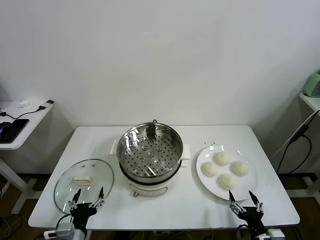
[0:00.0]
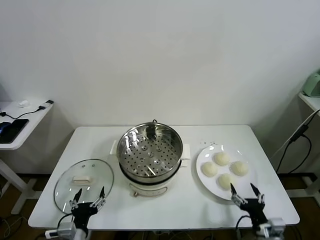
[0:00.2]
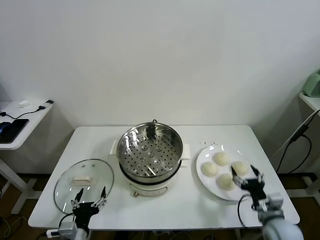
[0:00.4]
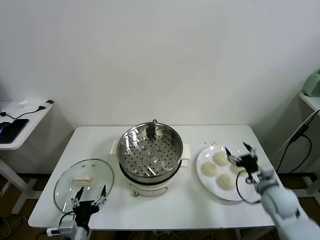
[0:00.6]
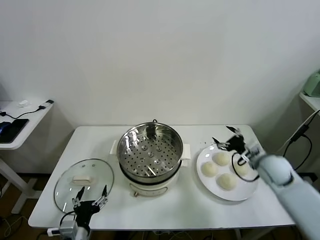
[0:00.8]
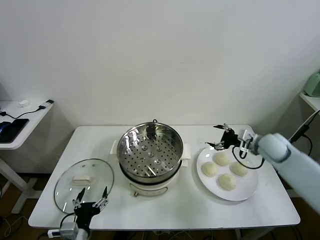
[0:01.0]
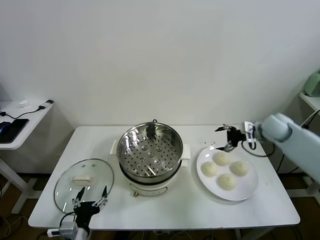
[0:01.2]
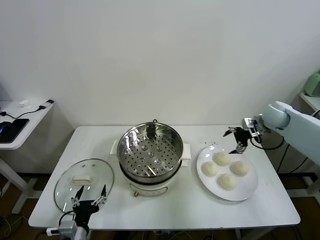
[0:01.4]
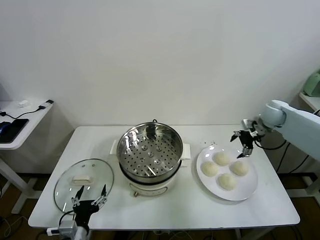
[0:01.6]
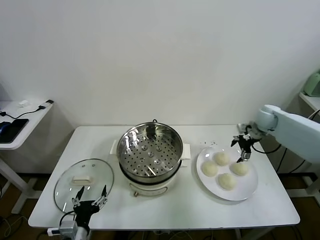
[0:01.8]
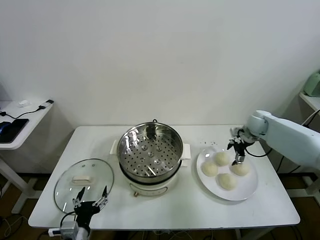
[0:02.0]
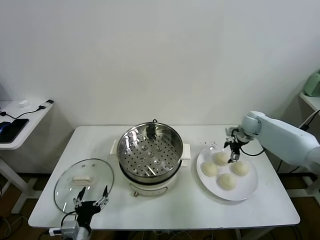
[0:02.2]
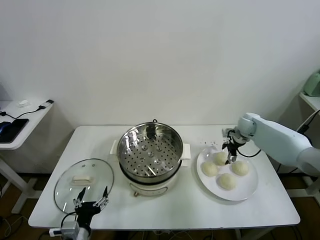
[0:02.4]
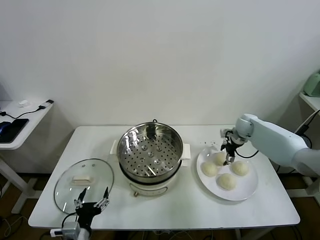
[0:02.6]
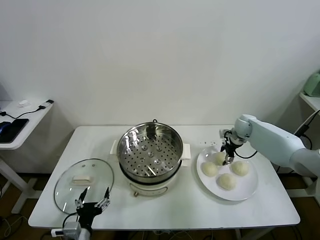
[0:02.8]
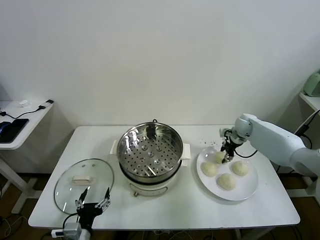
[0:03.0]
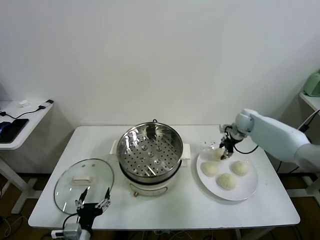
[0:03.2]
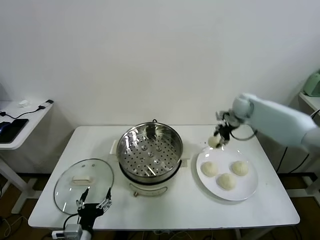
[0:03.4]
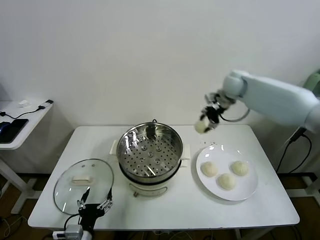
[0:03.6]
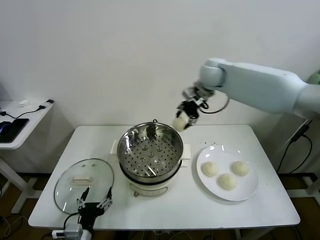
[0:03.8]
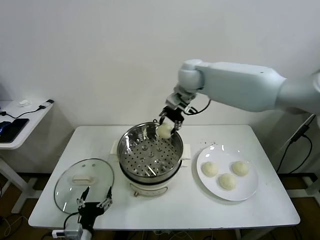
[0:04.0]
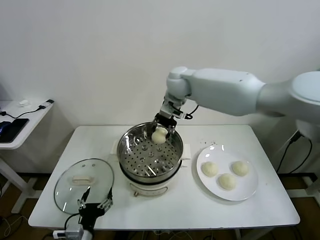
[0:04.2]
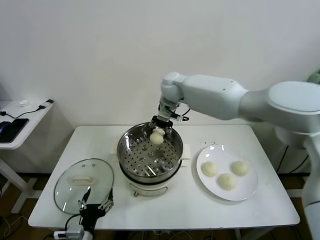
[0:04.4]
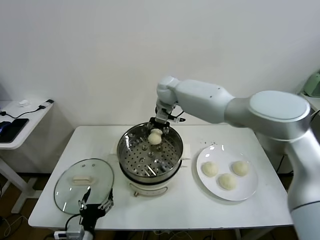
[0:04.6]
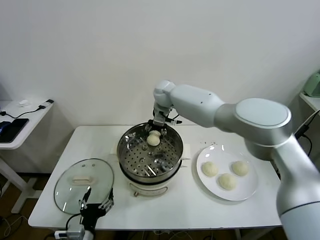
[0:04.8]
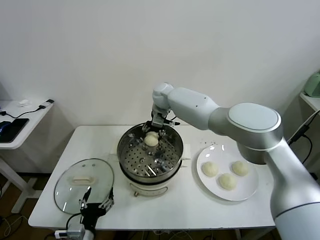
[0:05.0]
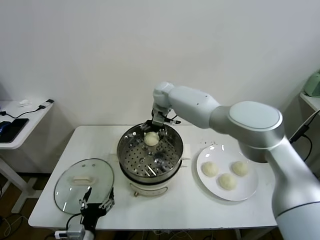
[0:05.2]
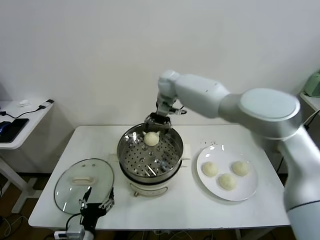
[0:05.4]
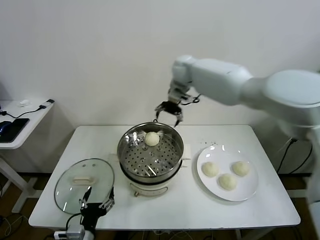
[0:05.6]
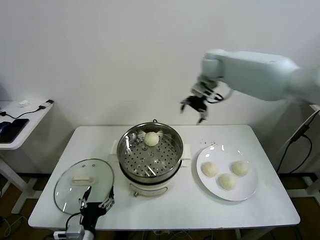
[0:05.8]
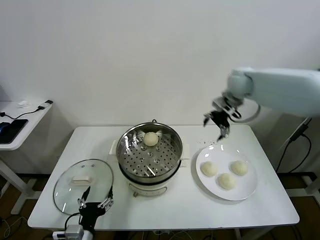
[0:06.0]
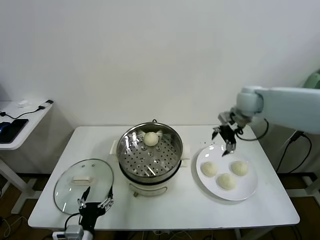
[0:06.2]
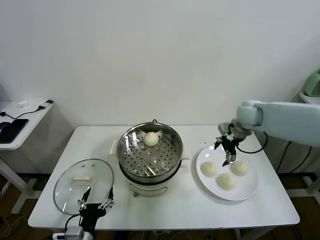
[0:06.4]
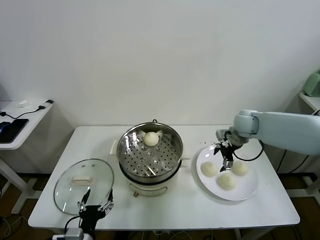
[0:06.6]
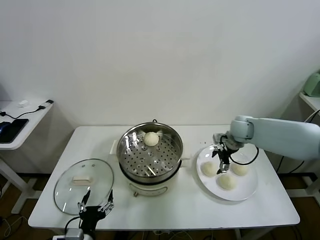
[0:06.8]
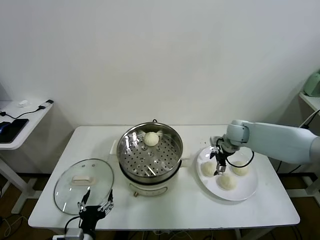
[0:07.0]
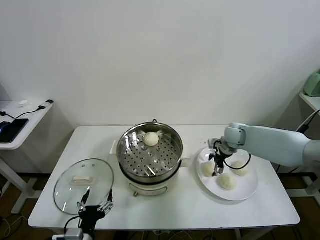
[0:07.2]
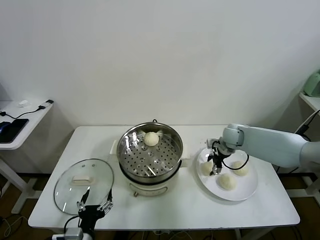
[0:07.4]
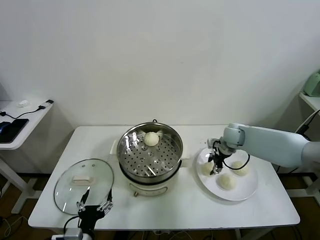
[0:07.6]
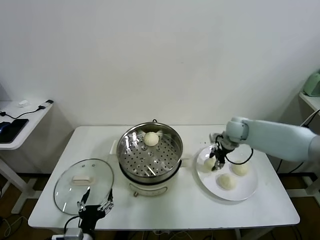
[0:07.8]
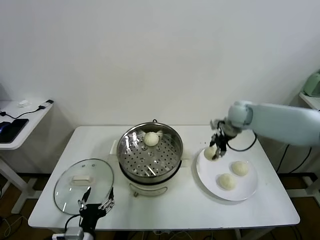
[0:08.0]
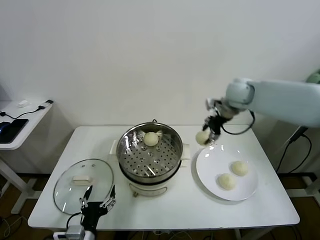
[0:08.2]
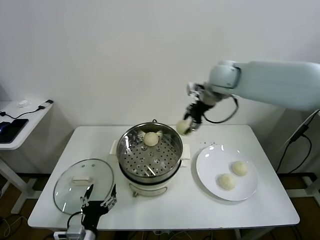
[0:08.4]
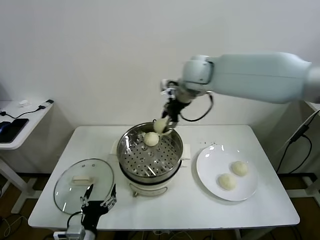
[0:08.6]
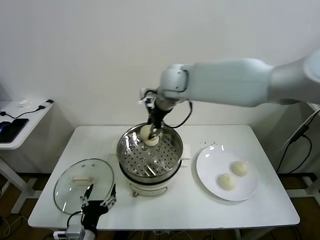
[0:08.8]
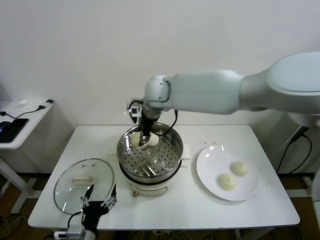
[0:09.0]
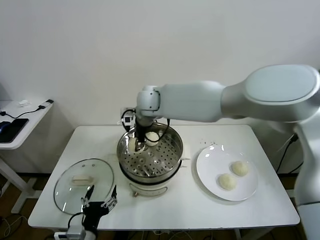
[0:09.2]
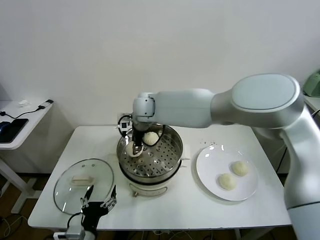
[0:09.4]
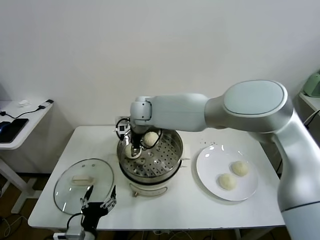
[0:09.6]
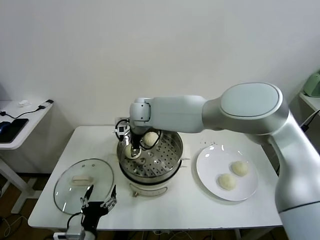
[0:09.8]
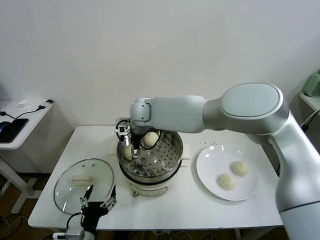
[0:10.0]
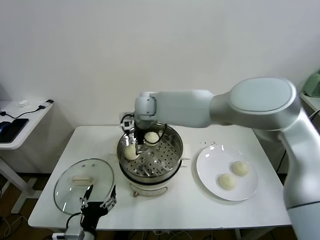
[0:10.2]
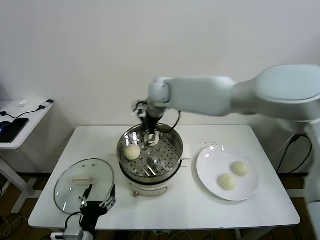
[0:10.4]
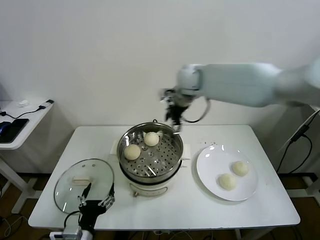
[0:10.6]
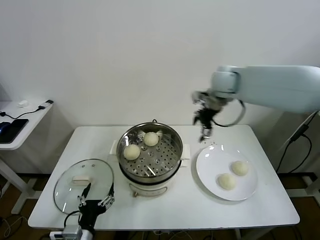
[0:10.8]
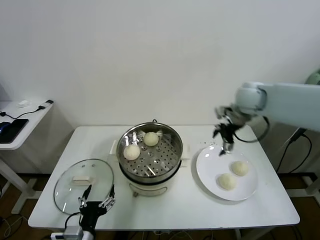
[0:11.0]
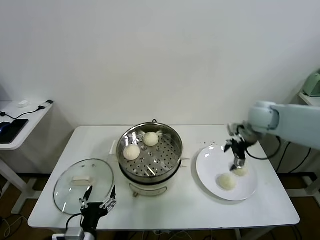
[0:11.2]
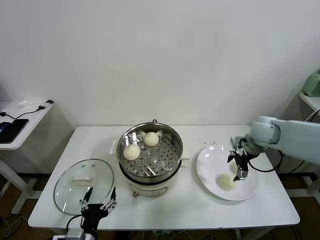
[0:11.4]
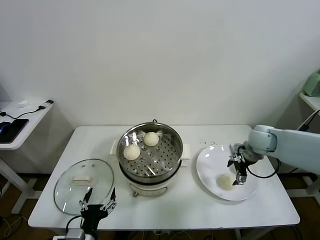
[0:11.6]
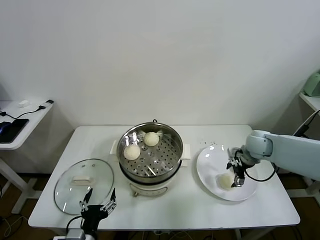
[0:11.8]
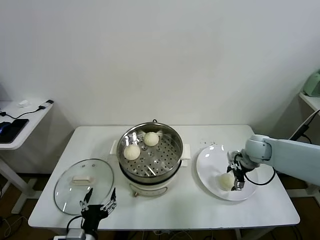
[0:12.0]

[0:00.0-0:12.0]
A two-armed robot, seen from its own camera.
Task of the whole recording: take steamed baozi put them in steamer.
Step, 0.0 to 2.8 s: Grasp the baozi in the plate with right gripper.
Step, 3.0 to 5.0 s: Place the baozi on the steamer with right gripper.
Step, 5.4 to 7.4 s: Grasp the baozi in the plate with right gripper.
Step, 7.8 to 10.0 s: Place the baozi on the steamer with right gripper.
1.6 to 3.0 s: The right gripper heads downward and to the left, covering about 10 cm, and closes its fingers.
3.0 to 4.4 s: The right gripper heads to the left and upward, covering approximately 35 cm.
4.4 to 6.0 s: The right gripper goes some 25 cm to the right, and opens up.
6.0 to 7.6 s: The right gripper travels downward by some 20 cm, and closes up.
7.6 to 9.0 s: The right gripper is displaced to the left and upward by approximately 35 cm.
9.0 to 10.4 s: The right gripper goes some 5 cm to the right, and opens.
10.4 to 12.0 s: The right gripper is displaced to the right and downward by approximately 40 cm.

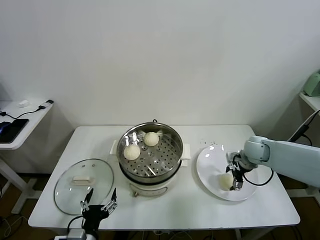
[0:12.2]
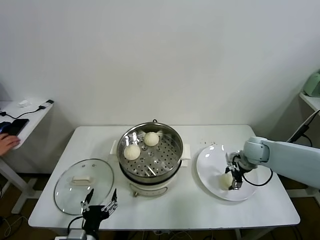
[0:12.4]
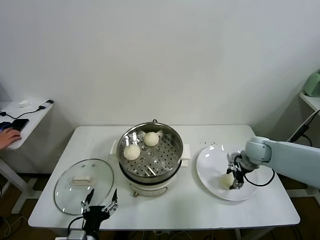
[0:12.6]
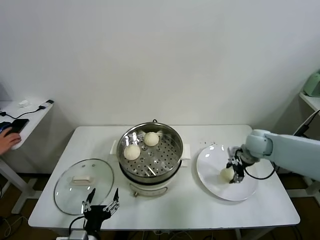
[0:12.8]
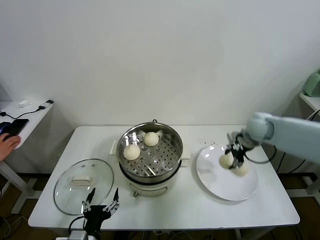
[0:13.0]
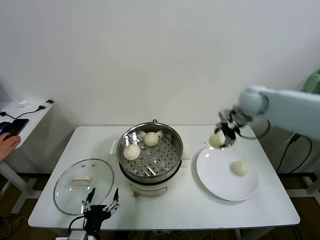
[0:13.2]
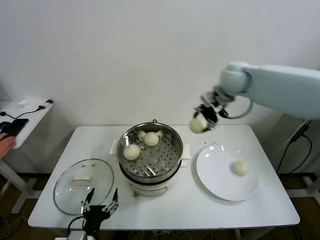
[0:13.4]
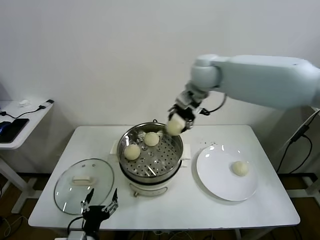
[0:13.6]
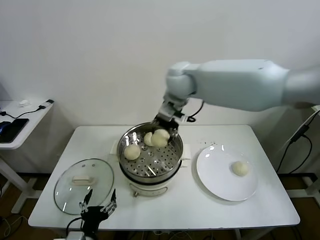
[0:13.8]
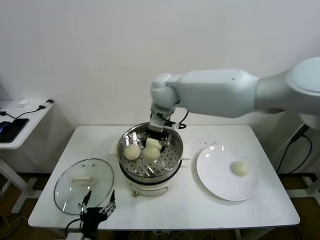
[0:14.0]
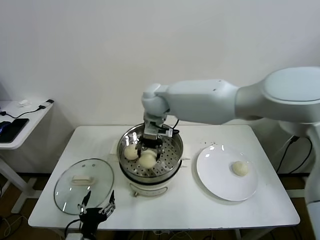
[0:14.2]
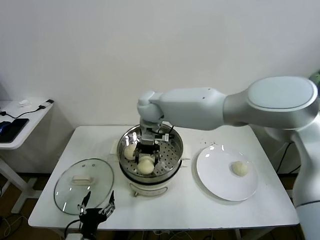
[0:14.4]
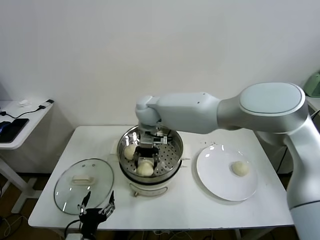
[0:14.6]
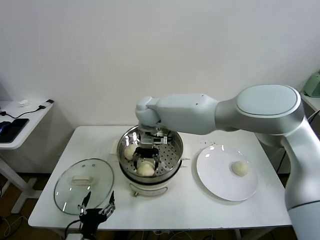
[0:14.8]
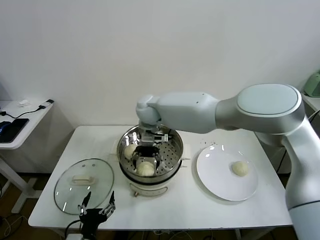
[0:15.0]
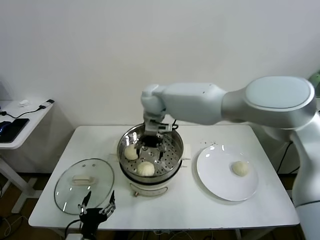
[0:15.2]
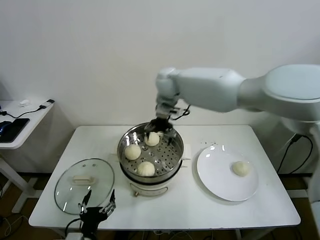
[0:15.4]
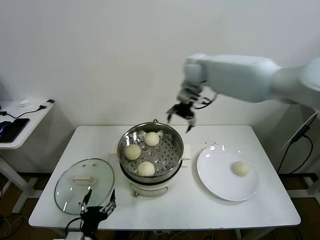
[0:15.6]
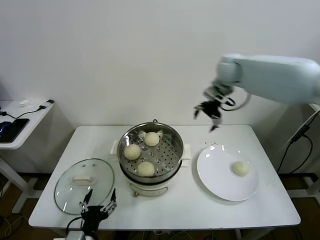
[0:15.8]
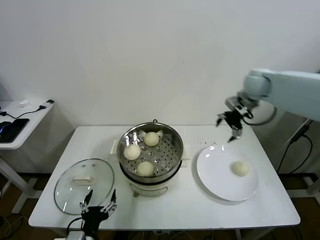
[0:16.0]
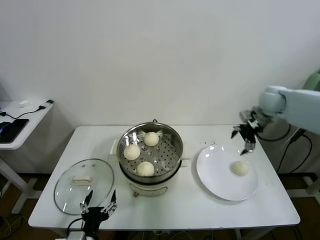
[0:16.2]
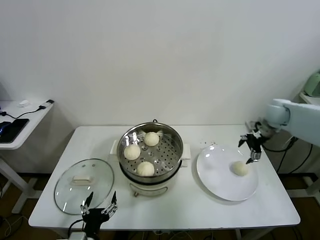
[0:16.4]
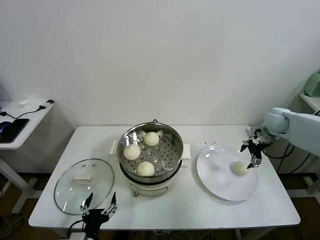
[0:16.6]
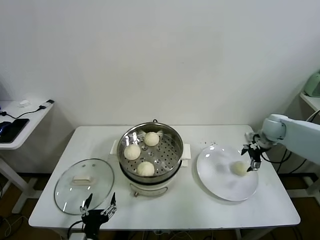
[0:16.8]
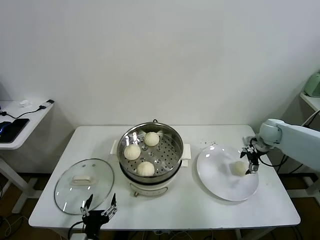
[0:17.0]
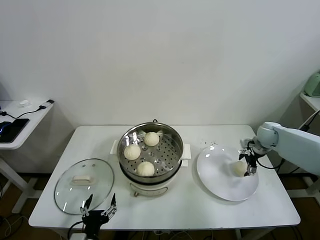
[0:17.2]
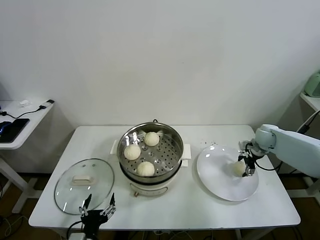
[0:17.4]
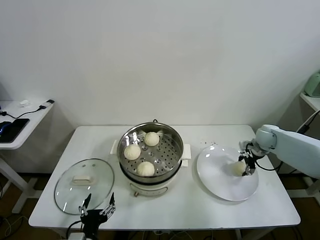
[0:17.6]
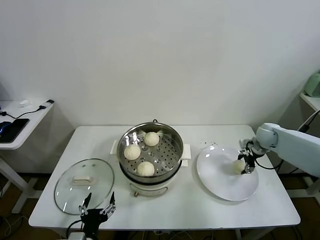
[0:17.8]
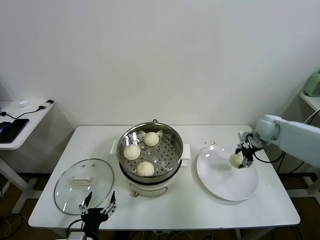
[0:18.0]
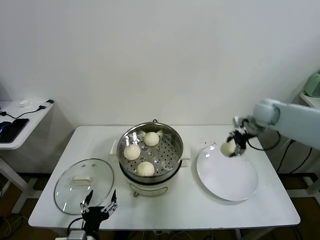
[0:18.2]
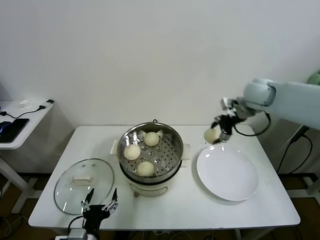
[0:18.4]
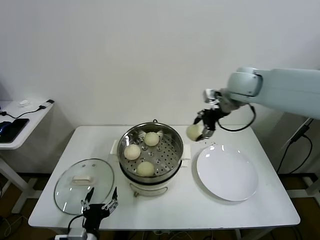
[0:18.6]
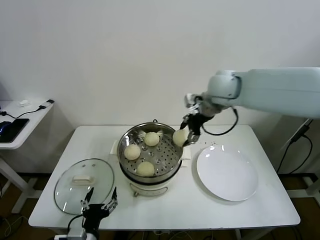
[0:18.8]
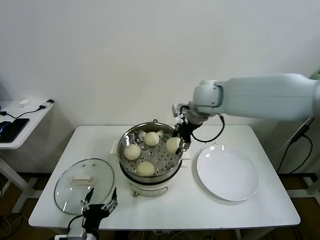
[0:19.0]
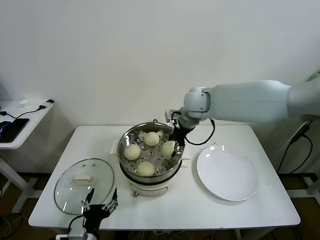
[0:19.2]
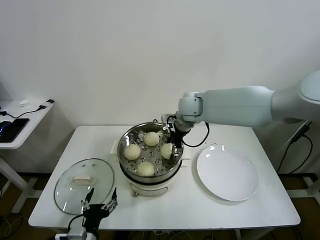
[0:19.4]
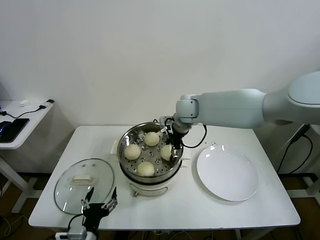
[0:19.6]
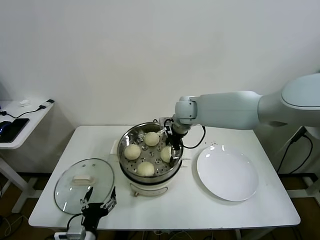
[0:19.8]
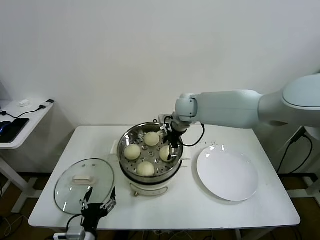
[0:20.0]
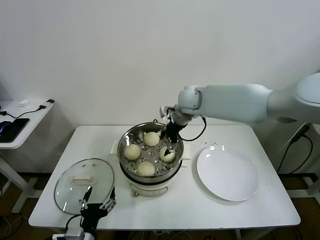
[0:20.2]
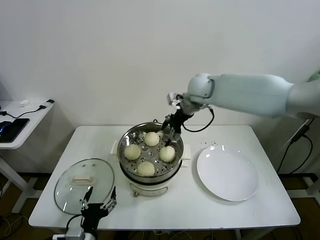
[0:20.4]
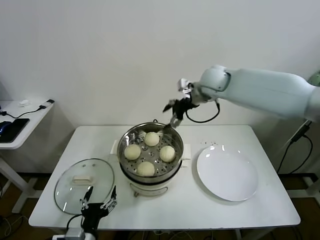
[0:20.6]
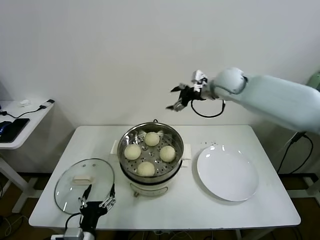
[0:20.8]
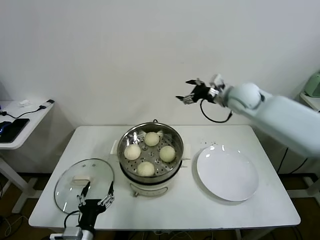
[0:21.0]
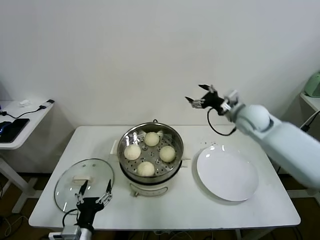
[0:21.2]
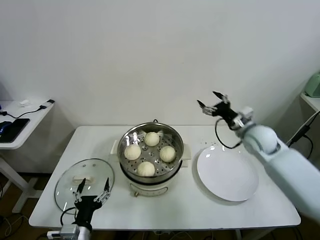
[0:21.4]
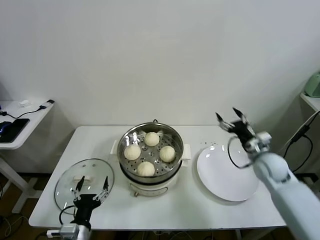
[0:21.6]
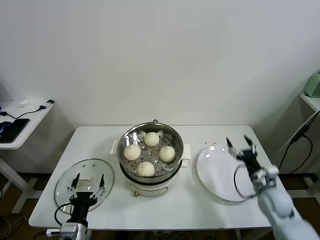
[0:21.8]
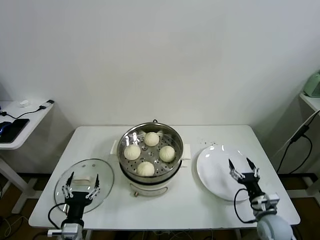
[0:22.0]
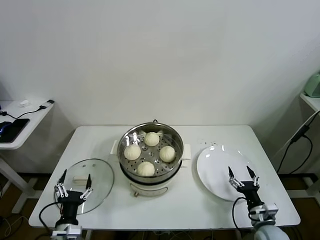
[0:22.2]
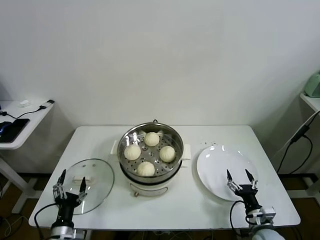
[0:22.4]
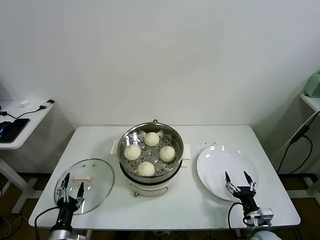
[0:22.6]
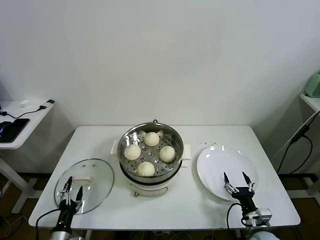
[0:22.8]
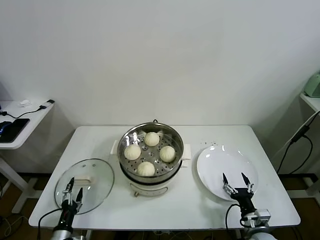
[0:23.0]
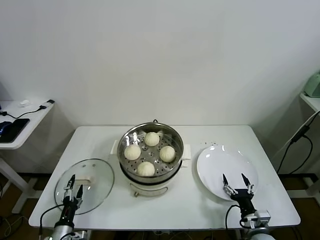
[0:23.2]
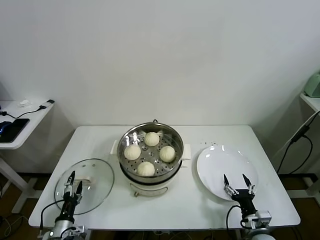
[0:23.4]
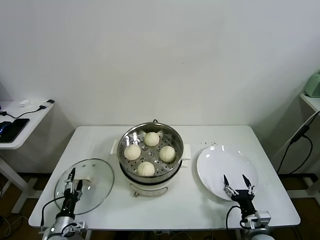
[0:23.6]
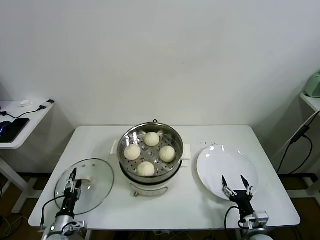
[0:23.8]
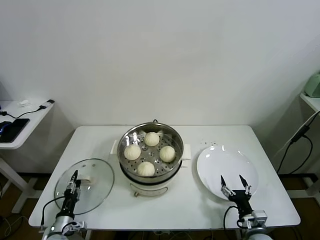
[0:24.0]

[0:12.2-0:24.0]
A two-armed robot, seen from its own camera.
Task of the whole recording: take steamed baozi put them in steamer.
Step, 12.8 to 14.8 s: Place the baozi on the steamer with right gripper.
Step, 15.2 to 17.4 s: Grasp the baozi in the plate with right gripper.
Step, 17.6 to 19.8 s: Place the baozi on the steamer with right gripper.
12.2 to 13.6 s: The right gripper heads upward and to the left, covering some 35 cm, and closes up.
13.6 to 15.2 s: The right gripper travels to the left and downward by about 15 cm, and opens.
15.2 to 16.6 s: The right gripper goes about 40 cm to the right.
16.6 to 18.2 s: The right gripper is displaced to the left and upward by about 10 cm, and closes up.
18.2 to 19.6 s: The right gripper heads to the left, covering roughly 25 cm.
19.6 to 21.0 s: The right gripper travels to the right by approximately 15 cm, and opens its fingers.
21.0 to 22.6 s: The right gripper moves downward and backward, roughly 50 cm. The left gripper shifts roughly 15 cm to the left and downward.
22.6 to 24.0 s: The left gripper heads downward and forward, covering approximately 10 cm, and closes.
